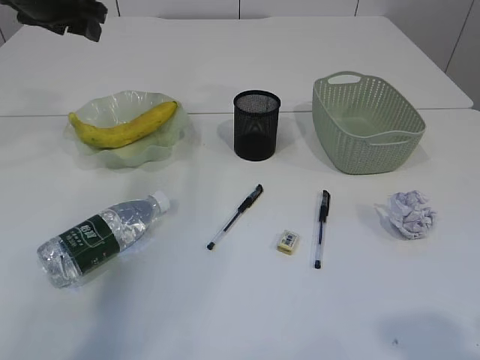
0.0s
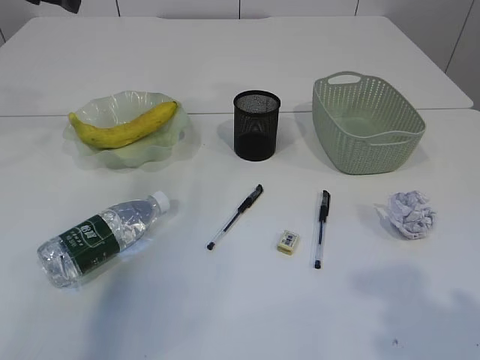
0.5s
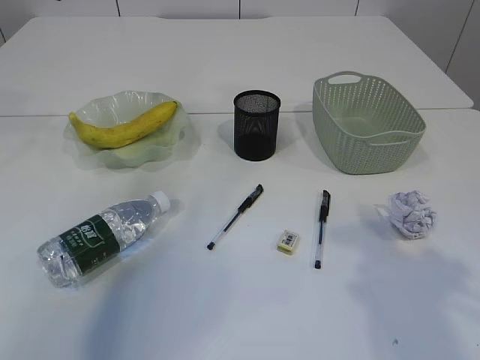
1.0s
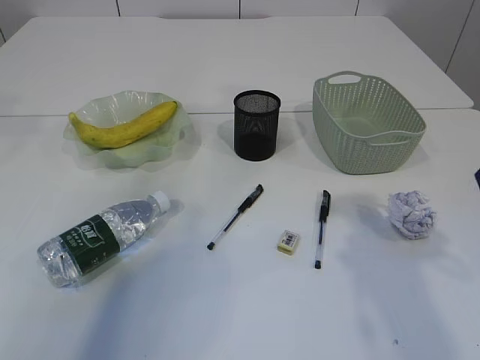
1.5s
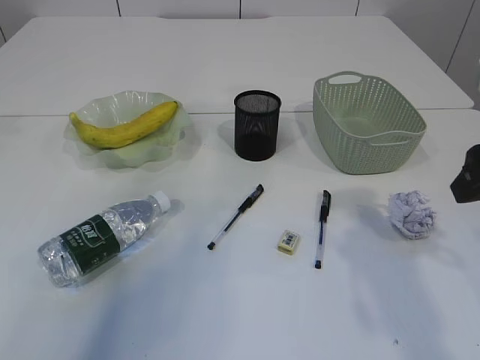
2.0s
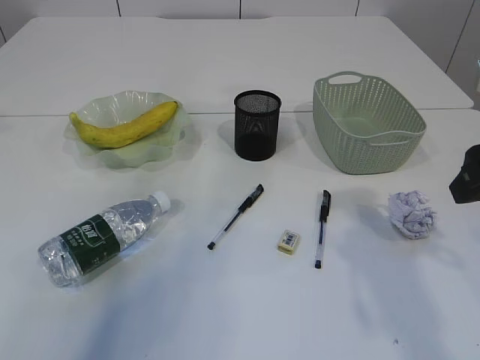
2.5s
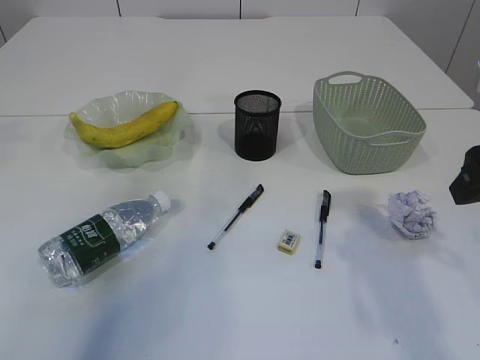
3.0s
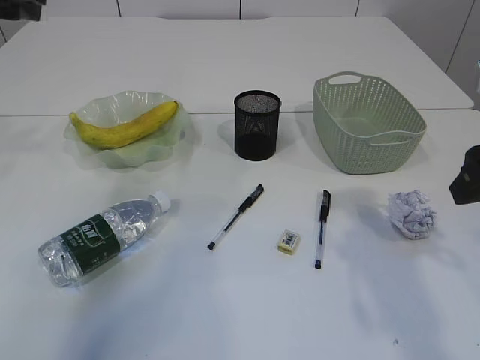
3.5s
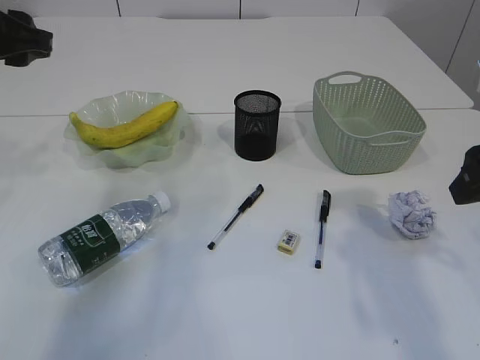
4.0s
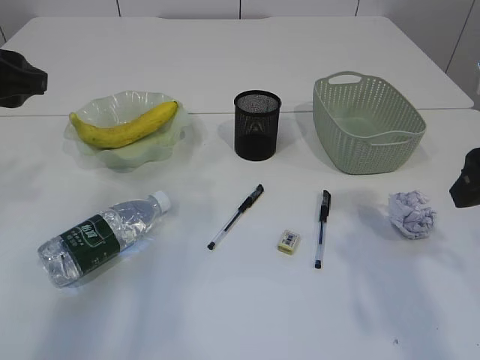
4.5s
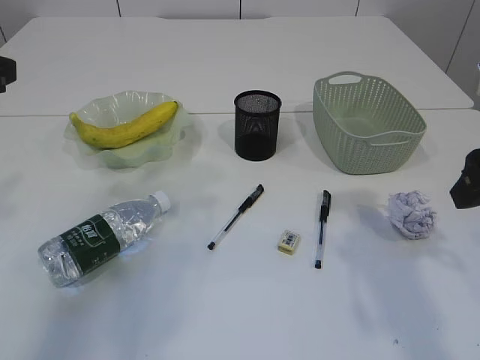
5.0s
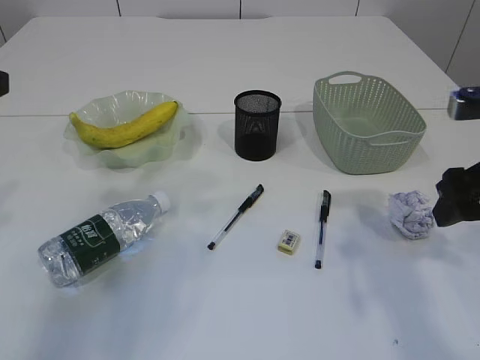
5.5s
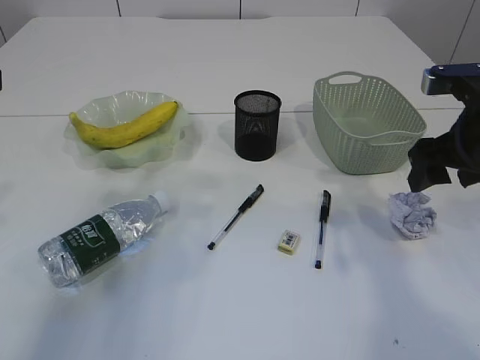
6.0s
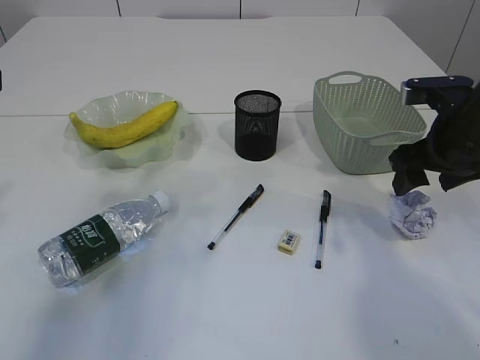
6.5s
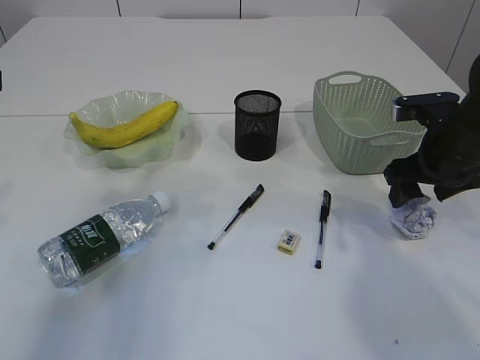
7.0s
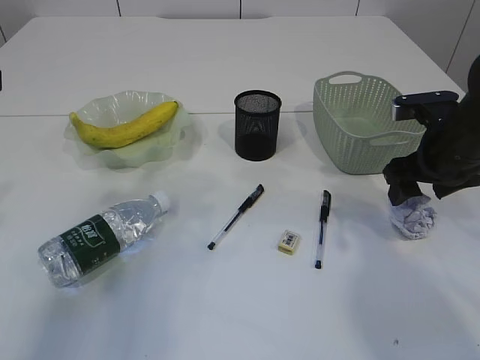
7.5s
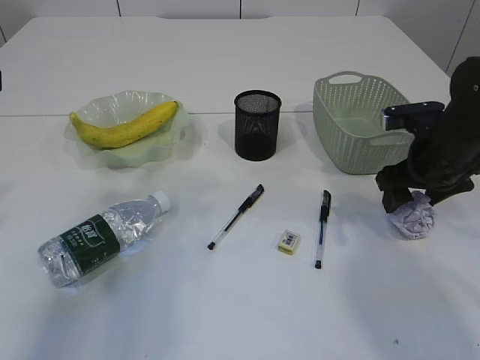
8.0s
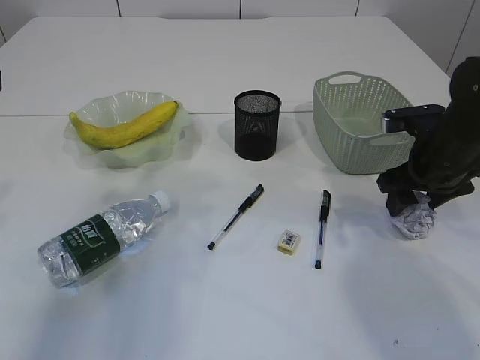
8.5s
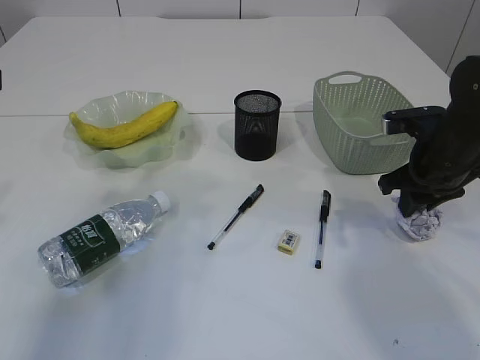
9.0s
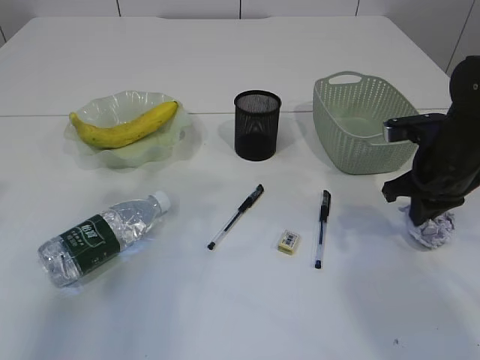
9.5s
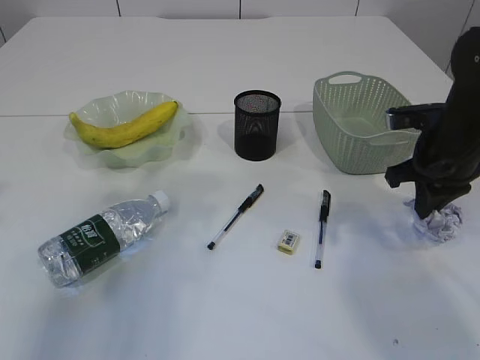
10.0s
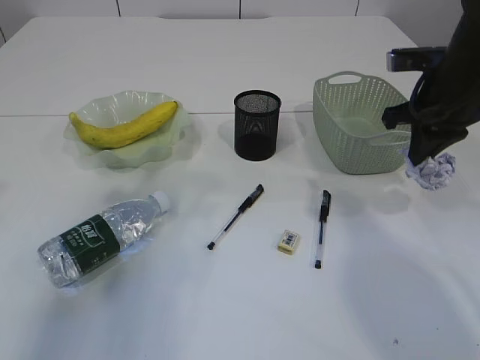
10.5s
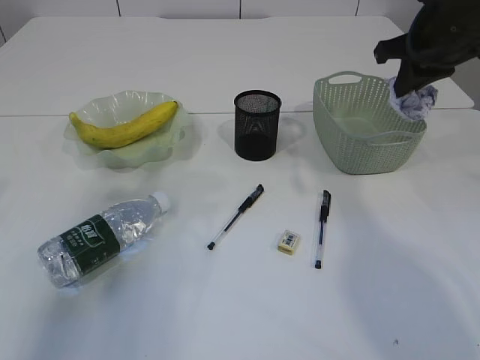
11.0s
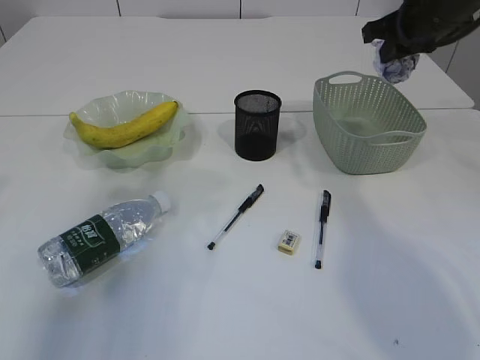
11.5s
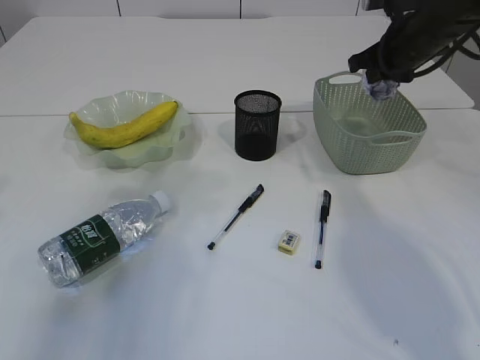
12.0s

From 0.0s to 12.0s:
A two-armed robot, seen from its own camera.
Step, from 0.0s to 10.0s: Pick up the waste paper.
From 0.0s to 2.0s: The right gripper travels forward by roughly 20 cm. The left gripper travels upward and backward by about 15 cm.
From 2.0s to 4.0s: The left gripper is displaced downward by some 15 cm.
From 4.0s to 6.0s: The right gripper travels forward by about 5 cm. Meanwhile the left gripper heads backward, covering some 10 cm.
From 6.0s to 8.0s: The right gripper is displaced downward and forward by about 10 cm.
From 8.0s to 10.0s: The right gripper closes its fingers.
From 10.0s to 12.0s: The right gripper goes roughly 15 cm forward and upward.

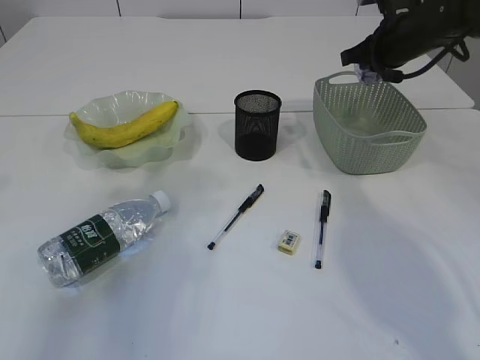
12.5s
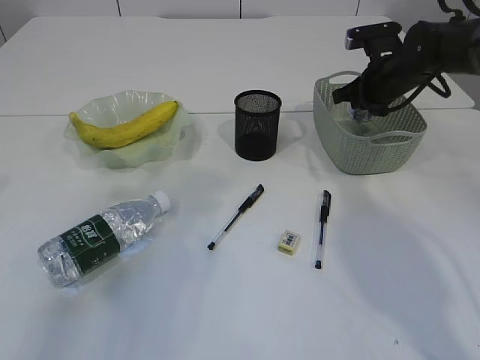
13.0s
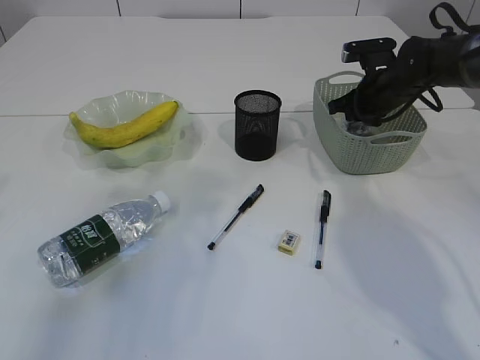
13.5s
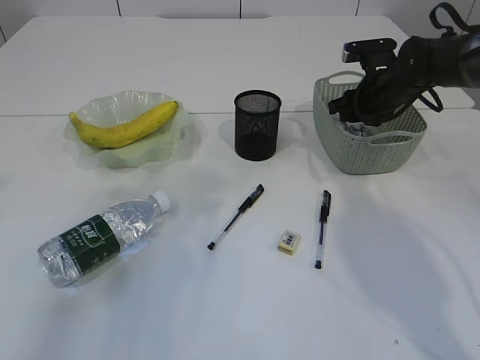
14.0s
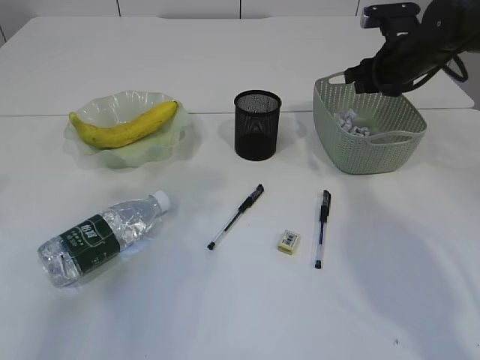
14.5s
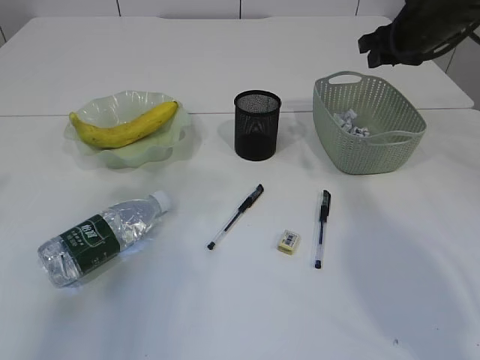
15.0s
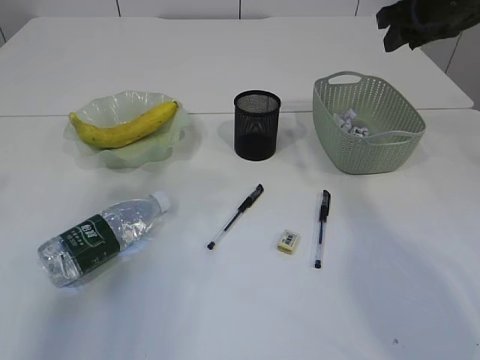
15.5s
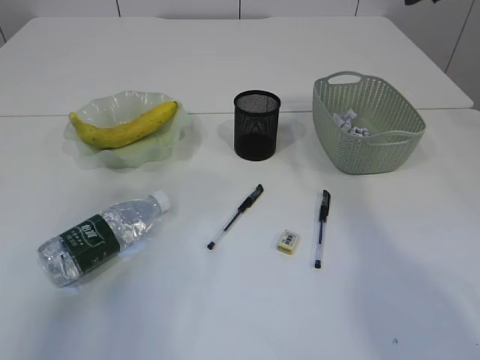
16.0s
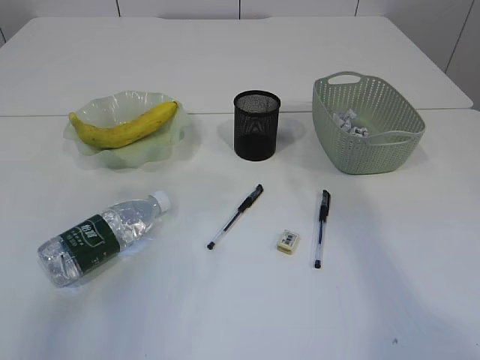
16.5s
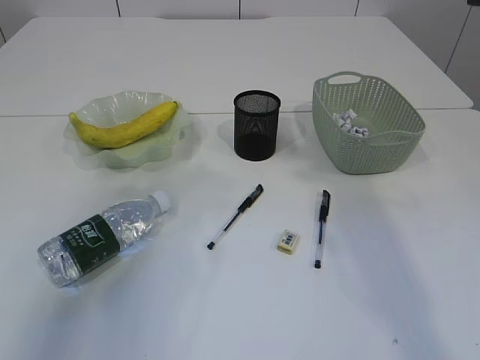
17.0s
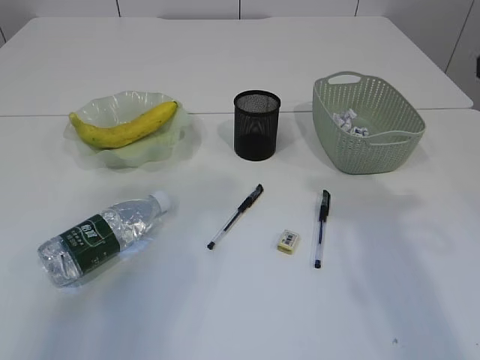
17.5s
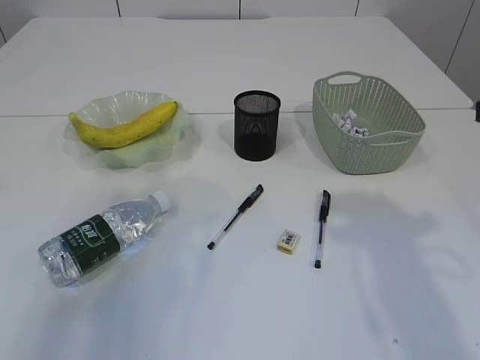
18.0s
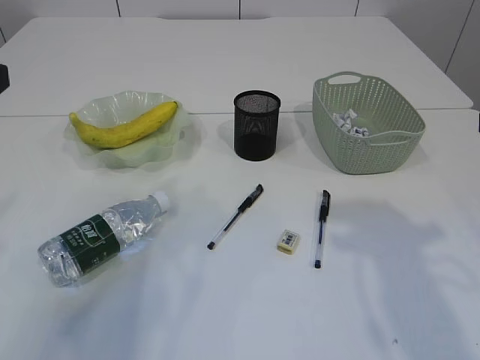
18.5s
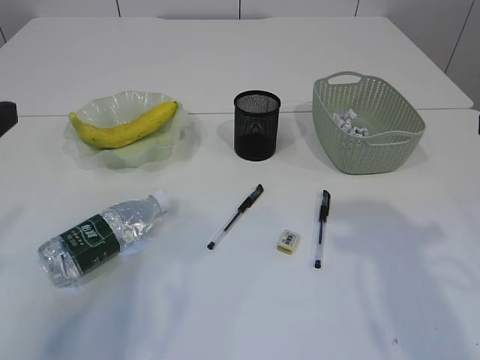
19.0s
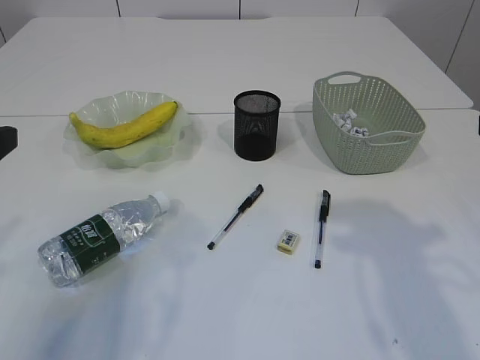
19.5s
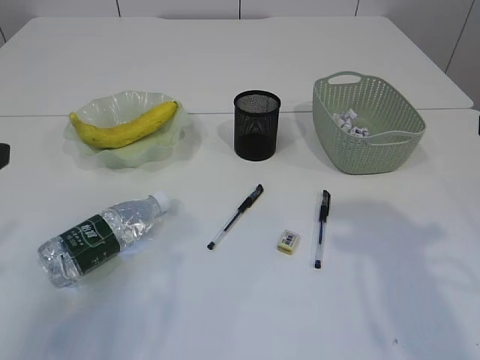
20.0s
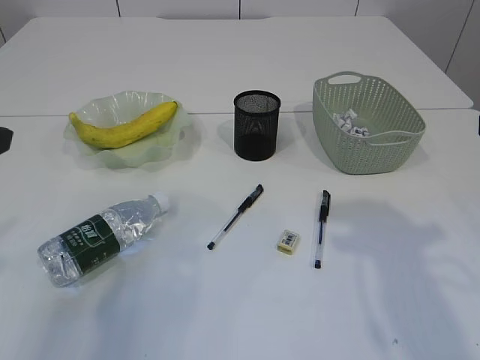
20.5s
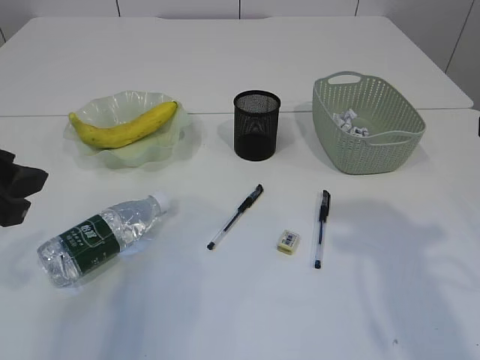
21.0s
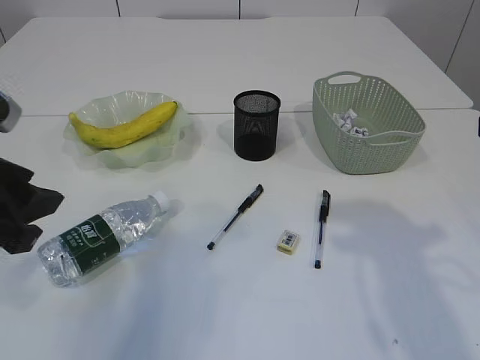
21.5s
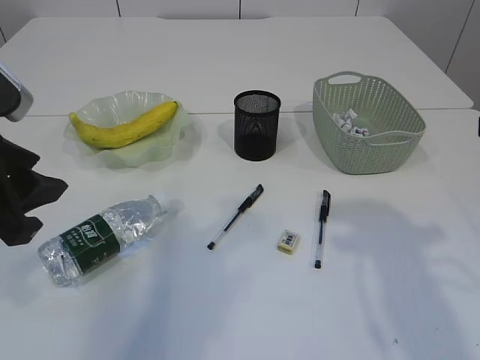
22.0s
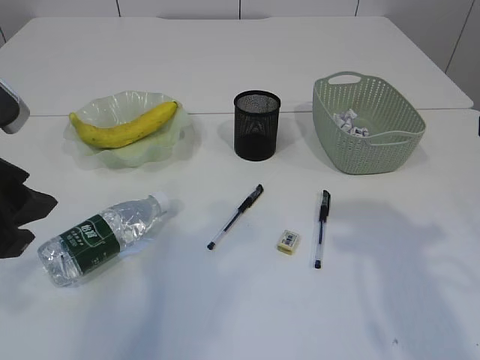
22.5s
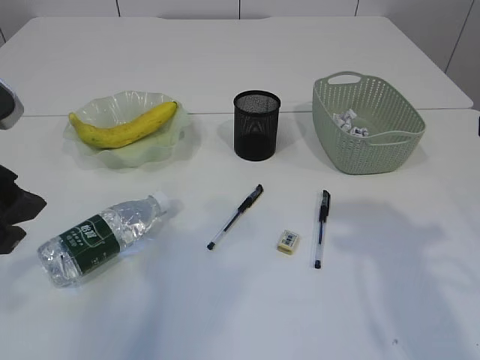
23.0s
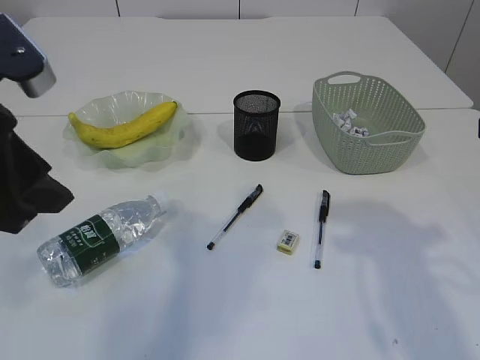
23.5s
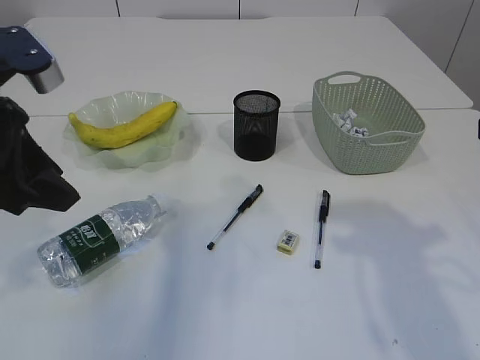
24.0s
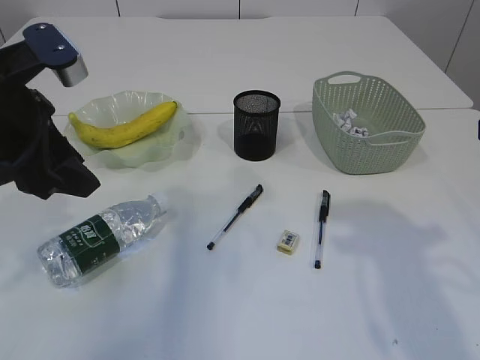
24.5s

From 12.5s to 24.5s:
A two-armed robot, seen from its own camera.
Step, from 12.5s to 14.5s: Place the waste paper in the basket.
From 12.5s to 14.5s: The right gripper opens its fingers.
From 14.5s to 16.5s: The right gripper shifts some 25 cm upward and backward.
From 20.5s to 22.5s: The left gripper changes place by about 5 cm.
From 22.5s to 24.5s: The left gripper shifts approximately 5 cm forward.

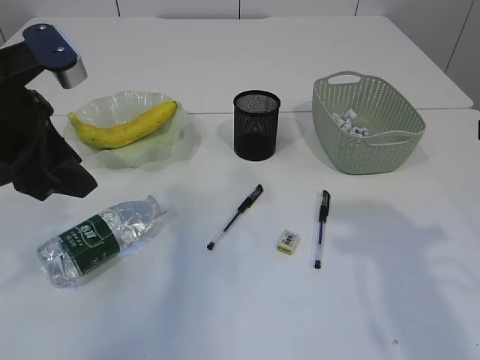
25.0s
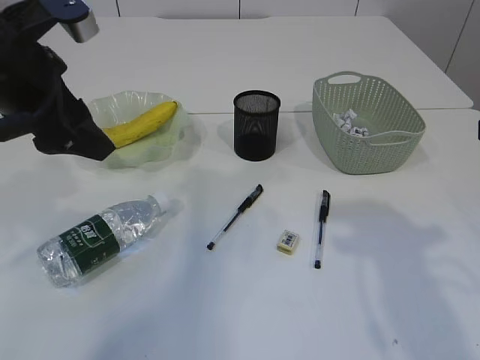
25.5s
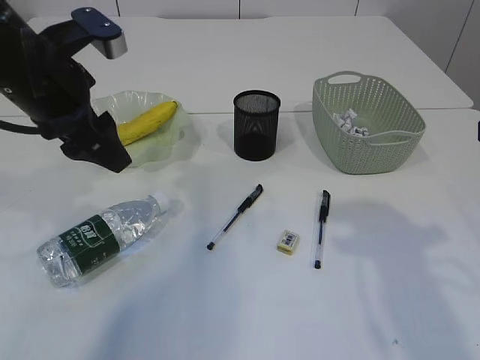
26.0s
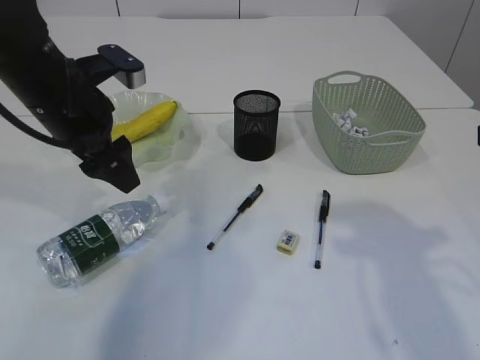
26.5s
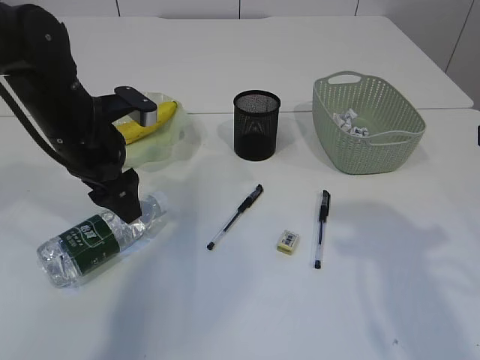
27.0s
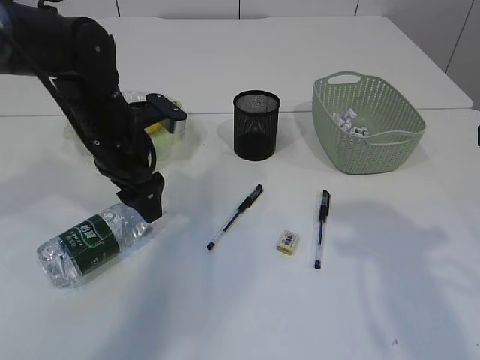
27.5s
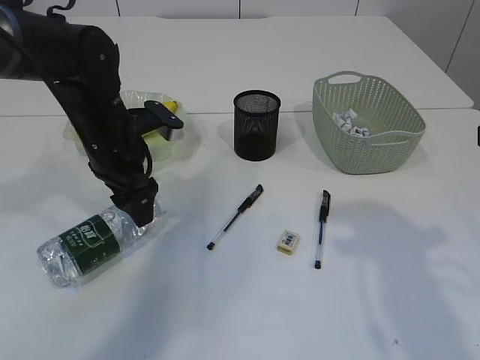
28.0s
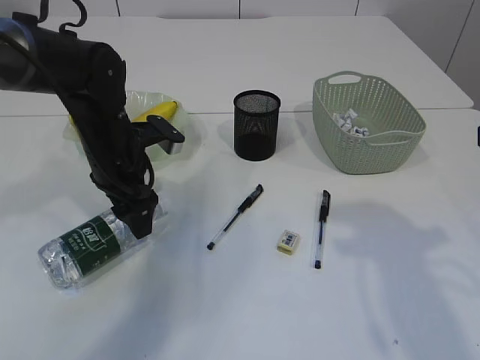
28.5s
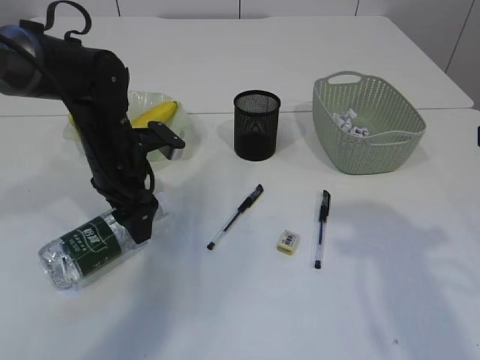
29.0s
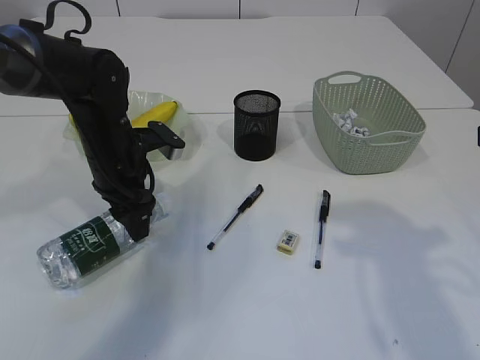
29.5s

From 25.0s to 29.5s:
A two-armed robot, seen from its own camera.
From 25.0s to 27.0s: The left gripper heads forward and downward, covering about 10 cm, and opens its fingers.
From 27.0s to 29.5s: The left gripper moves downward, approximately 5 cm, and closes up.
